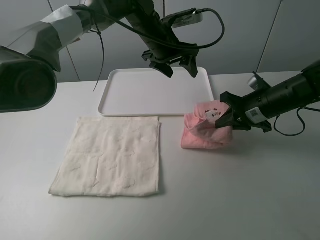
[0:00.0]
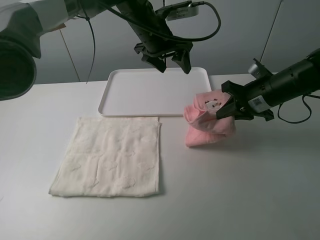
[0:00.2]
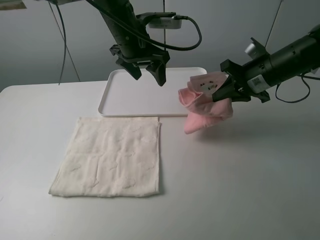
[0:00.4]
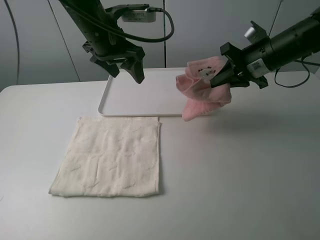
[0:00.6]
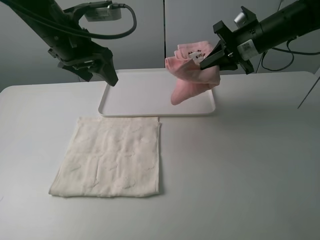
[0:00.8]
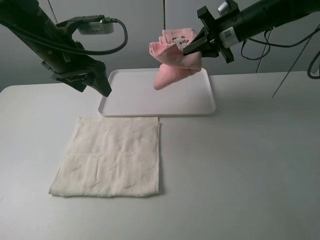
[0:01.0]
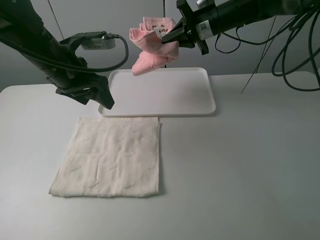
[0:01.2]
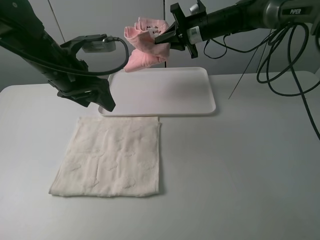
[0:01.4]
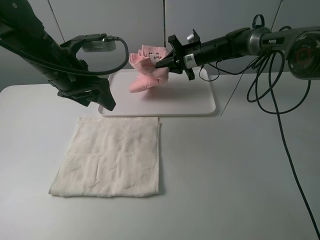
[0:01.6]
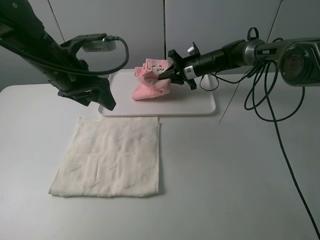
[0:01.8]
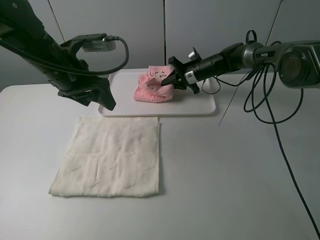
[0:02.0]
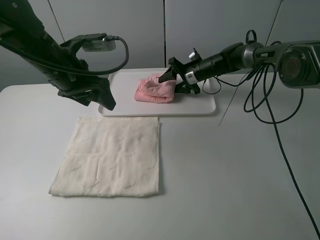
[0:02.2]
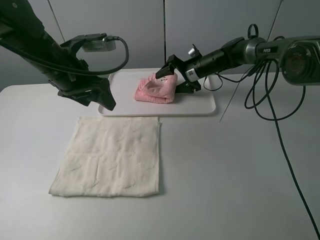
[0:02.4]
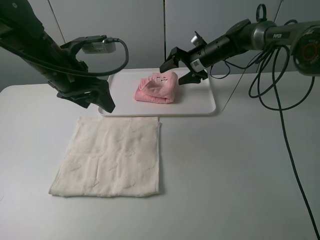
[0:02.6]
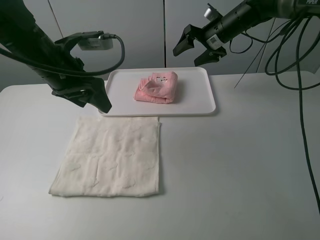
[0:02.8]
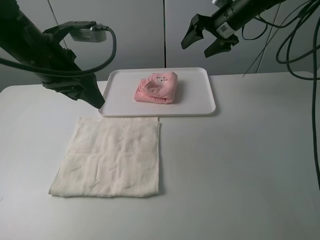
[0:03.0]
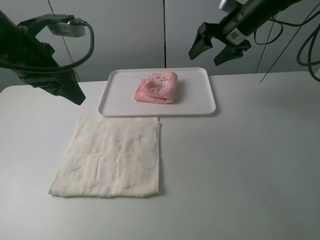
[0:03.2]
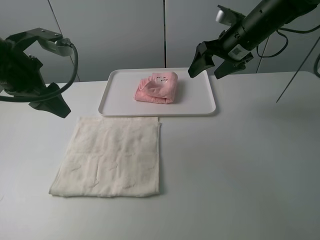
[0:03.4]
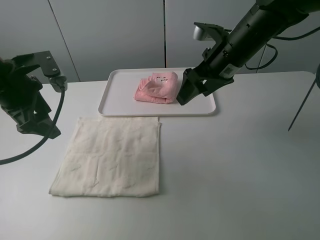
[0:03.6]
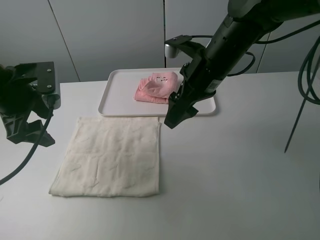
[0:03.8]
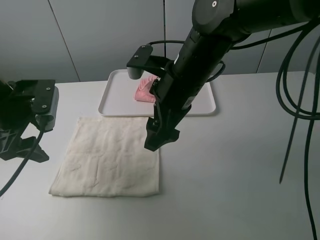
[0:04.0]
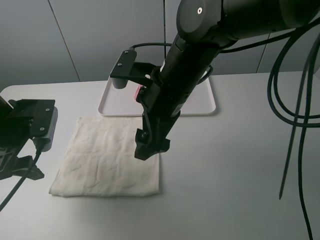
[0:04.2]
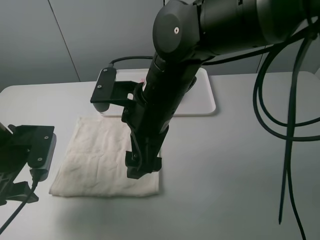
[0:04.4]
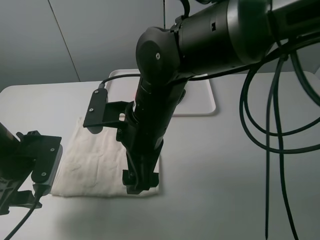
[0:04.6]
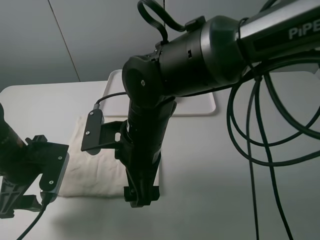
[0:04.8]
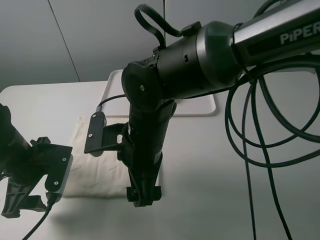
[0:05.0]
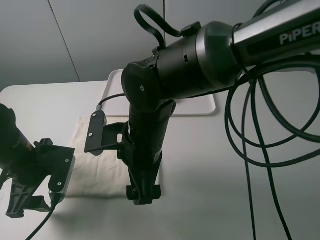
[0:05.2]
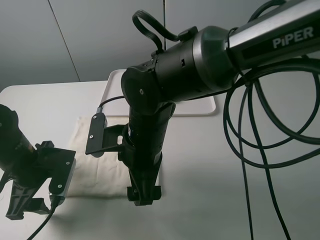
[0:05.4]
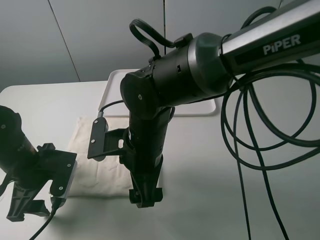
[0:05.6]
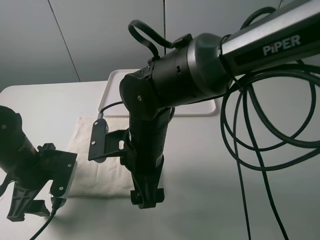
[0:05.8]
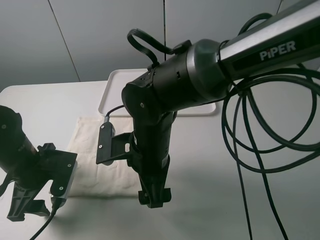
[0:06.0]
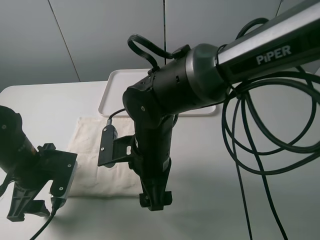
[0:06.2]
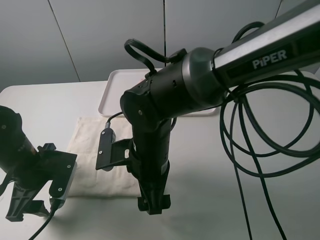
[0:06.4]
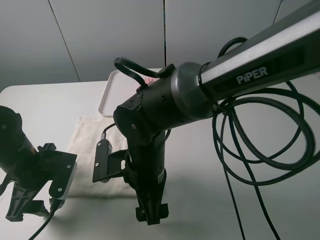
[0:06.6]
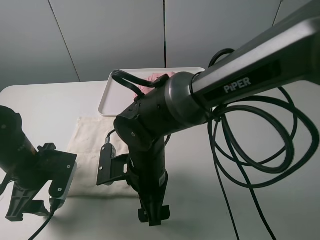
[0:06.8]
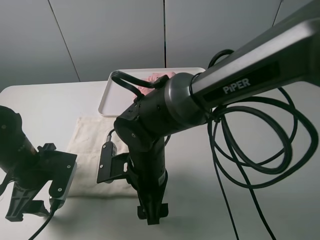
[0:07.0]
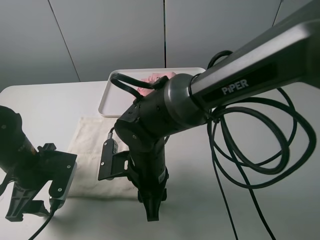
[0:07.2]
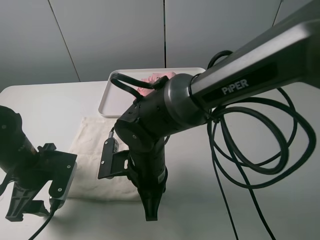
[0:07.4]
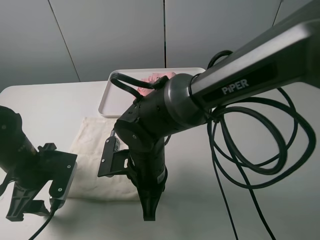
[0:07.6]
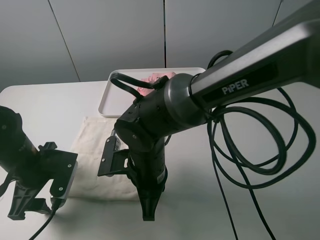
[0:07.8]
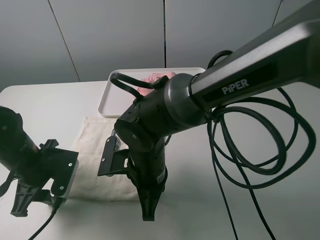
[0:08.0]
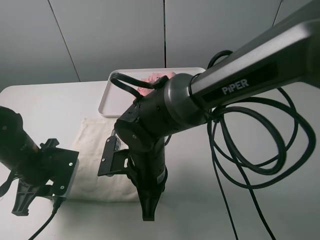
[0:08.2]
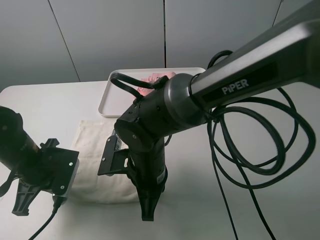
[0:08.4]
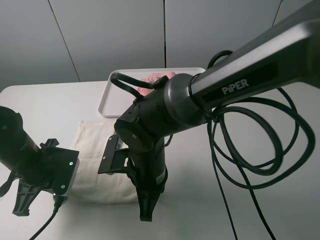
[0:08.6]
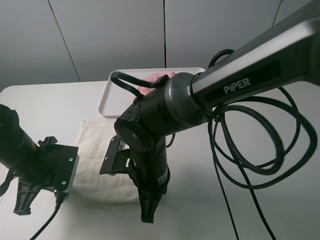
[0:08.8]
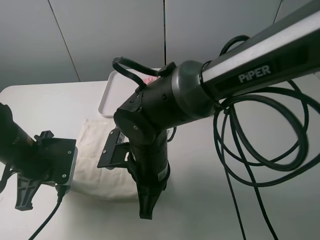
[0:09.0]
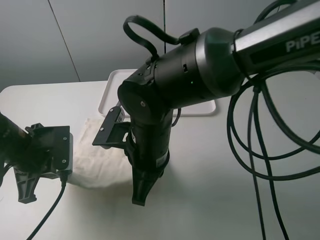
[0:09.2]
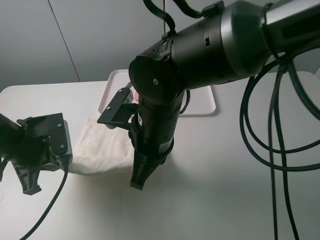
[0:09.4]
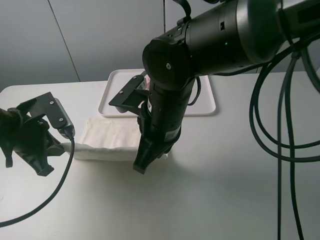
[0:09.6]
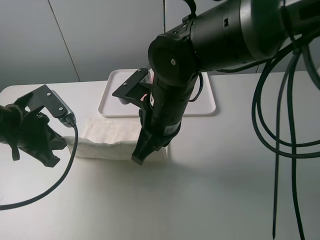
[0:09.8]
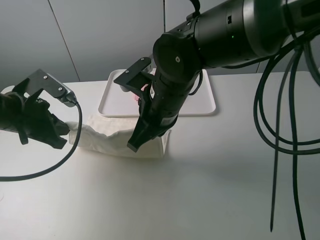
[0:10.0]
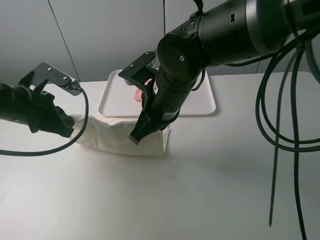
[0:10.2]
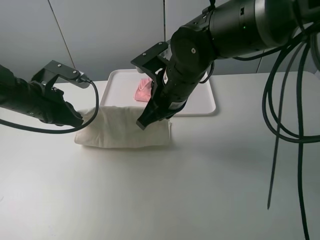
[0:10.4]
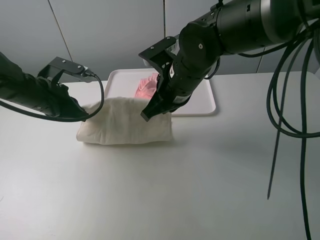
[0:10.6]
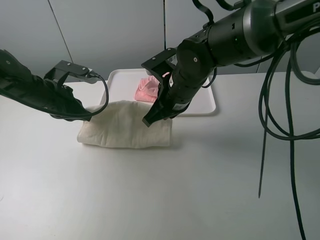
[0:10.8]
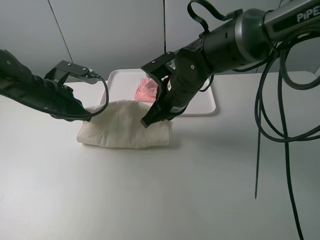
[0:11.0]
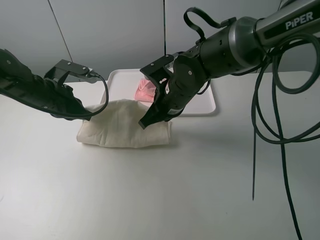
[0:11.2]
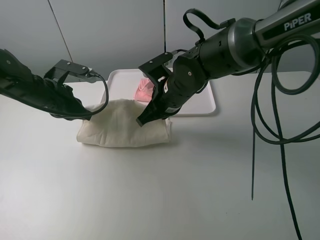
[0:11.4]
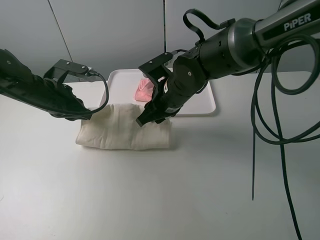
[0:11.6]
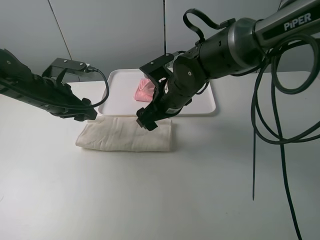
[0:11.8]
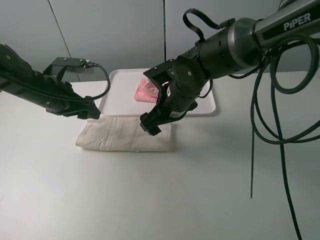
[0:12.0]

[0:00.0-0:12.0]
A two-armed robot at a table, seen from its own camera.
Task of the whole recording: fold one of the towels by two grippers and place it on the tray,then fold another towel by two grippers and place it on the folded towel.
Step, 0.0 to 2.6 s: Move the pink towel to the plate with the right gripper.
Step, 2.8 to 8.4 s: Grasp the white towel with the left gripper.
Step, 8.8 to 11.8 s: Fold the white towel upwards with the left gripper.
0.0 to 1.6 s: The left gripper is displaced to the left and backward by some 20 cm. The right gripper moves forward and to the left, roughly 25 cm.
1.6 to 3.0 s: The right gripper shifts some 15 cm upward and to the right, and opens.
3.0 to 4.4 s: The right gripper goes some 35 cm backward and to the left; the left gripper moves downward, backward and to the left, some 15 cm.
4.4 to 6.0 s: The left gripper changes place by about 5 cm. Meanwhile the right gripper moves downward, roughly 5 cm.
6.0 to 7.6 s: The right gripper closes.
7.6 to 9.0 s: The left gripper closes up.
9.0 to 10.4 s: The left gripper goes roughly 10 cm forward, while the right gripper shifts roughly 15 cm forward, upward and to the right.
10.4 to 12.0 s: The left gripper opens its fingers. The right gripper moves downward, some 5 cm, and opens.

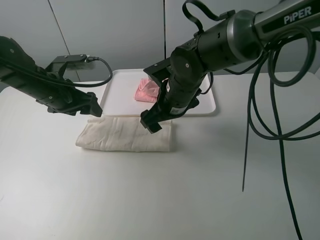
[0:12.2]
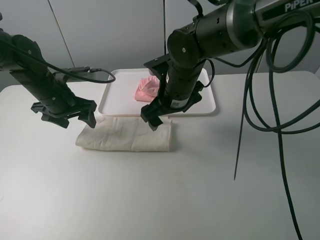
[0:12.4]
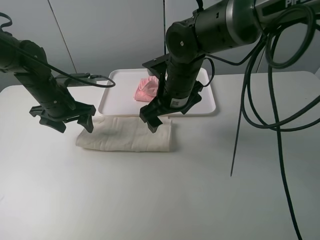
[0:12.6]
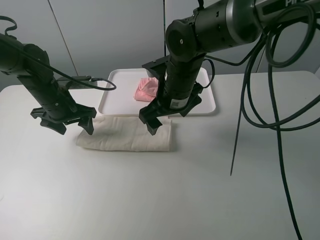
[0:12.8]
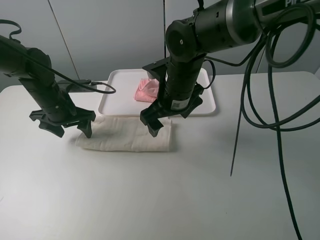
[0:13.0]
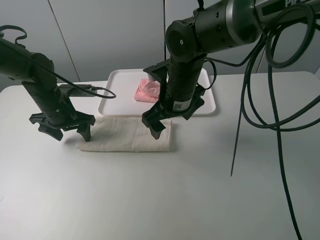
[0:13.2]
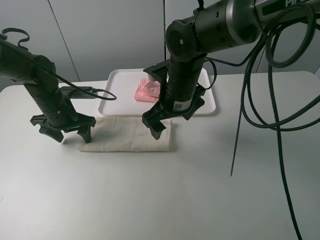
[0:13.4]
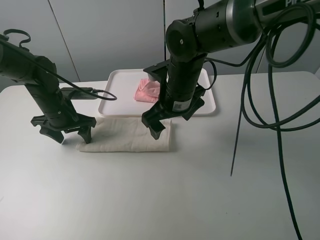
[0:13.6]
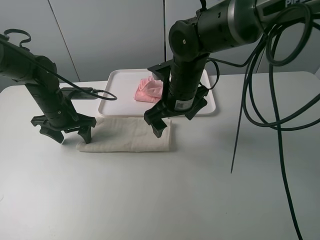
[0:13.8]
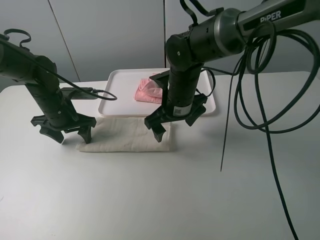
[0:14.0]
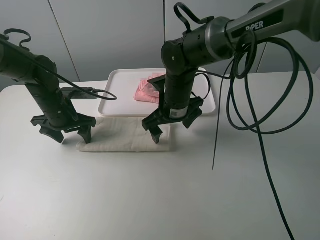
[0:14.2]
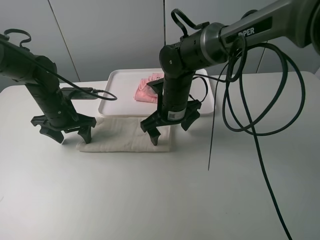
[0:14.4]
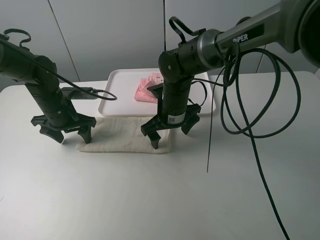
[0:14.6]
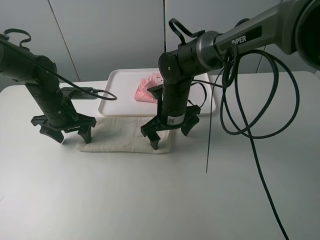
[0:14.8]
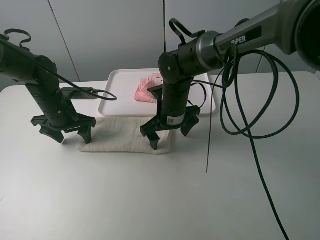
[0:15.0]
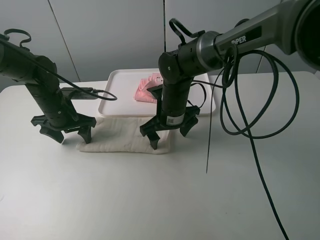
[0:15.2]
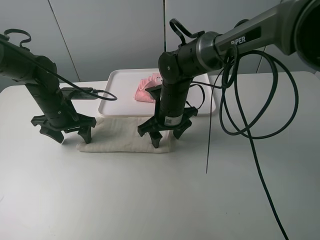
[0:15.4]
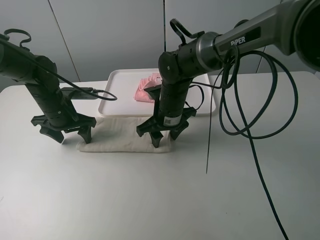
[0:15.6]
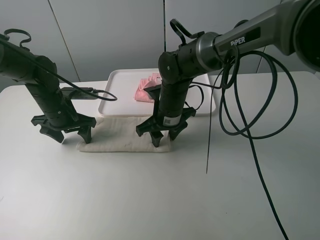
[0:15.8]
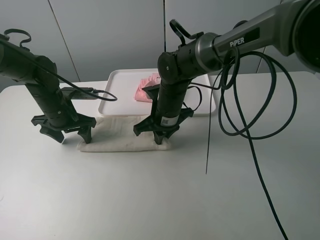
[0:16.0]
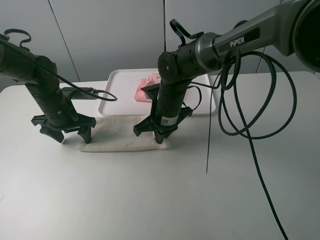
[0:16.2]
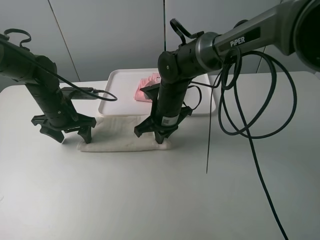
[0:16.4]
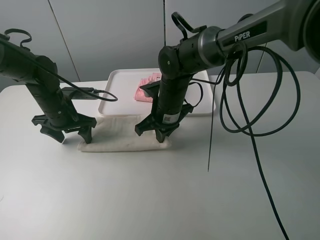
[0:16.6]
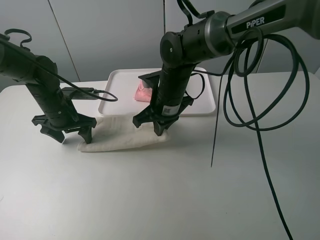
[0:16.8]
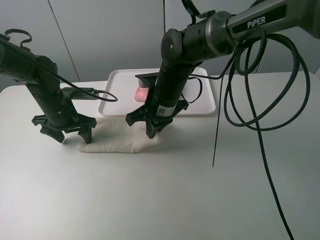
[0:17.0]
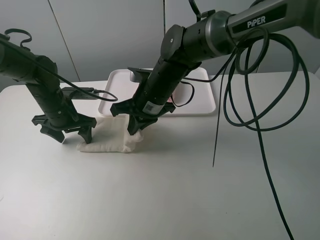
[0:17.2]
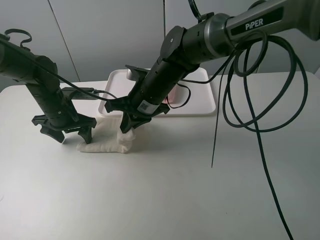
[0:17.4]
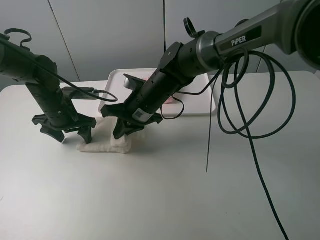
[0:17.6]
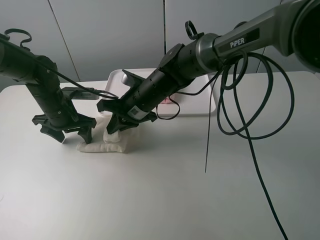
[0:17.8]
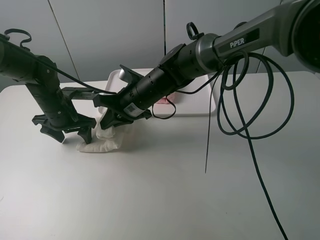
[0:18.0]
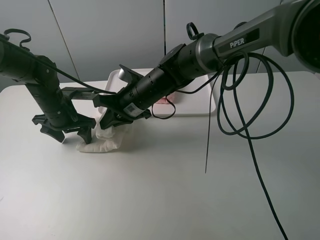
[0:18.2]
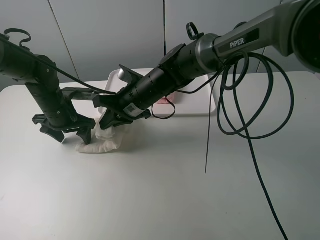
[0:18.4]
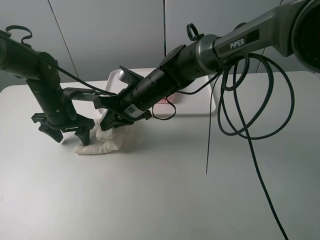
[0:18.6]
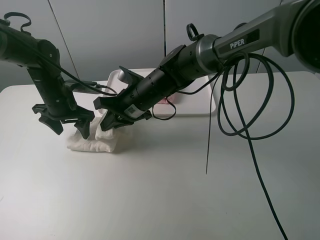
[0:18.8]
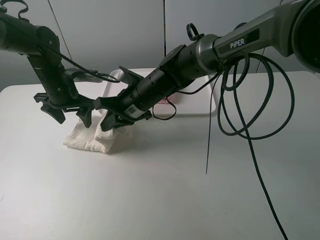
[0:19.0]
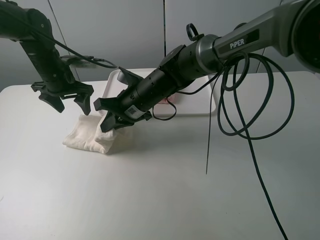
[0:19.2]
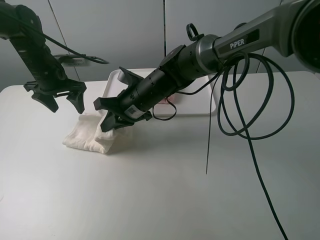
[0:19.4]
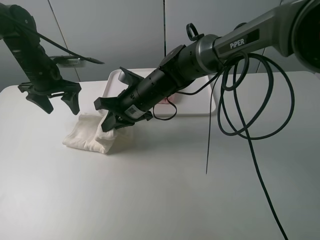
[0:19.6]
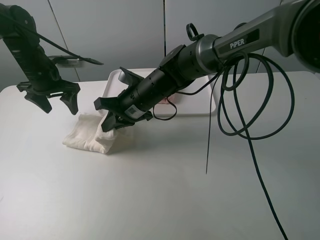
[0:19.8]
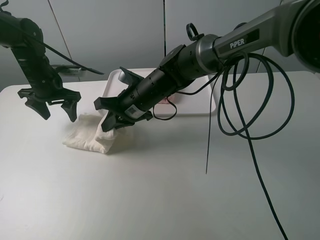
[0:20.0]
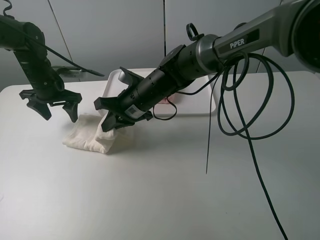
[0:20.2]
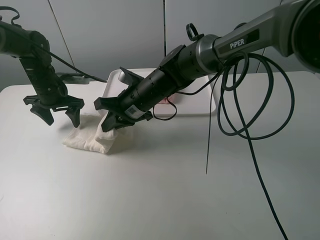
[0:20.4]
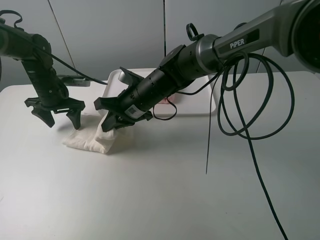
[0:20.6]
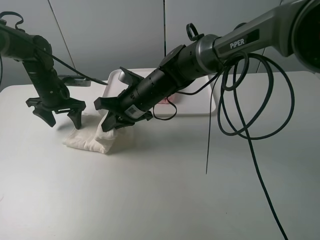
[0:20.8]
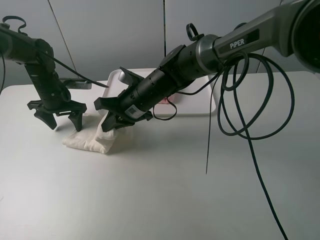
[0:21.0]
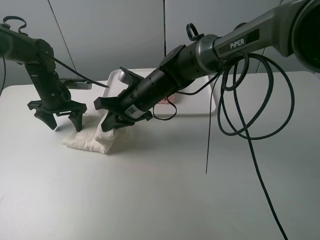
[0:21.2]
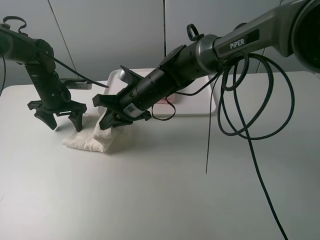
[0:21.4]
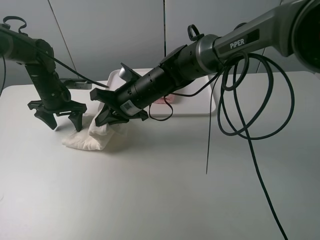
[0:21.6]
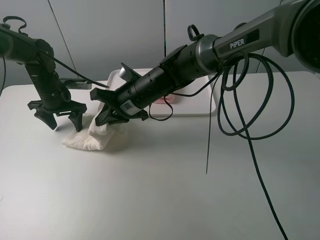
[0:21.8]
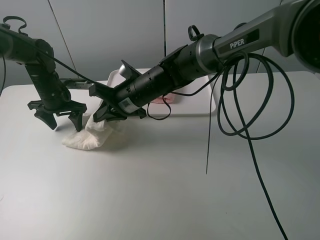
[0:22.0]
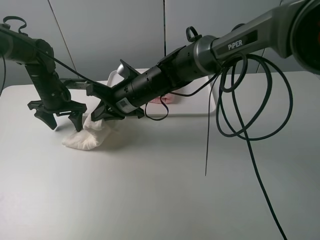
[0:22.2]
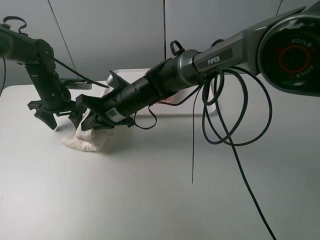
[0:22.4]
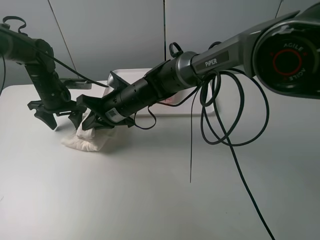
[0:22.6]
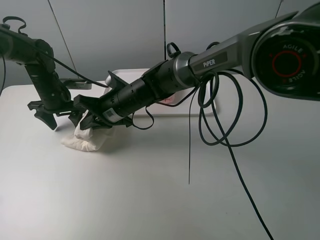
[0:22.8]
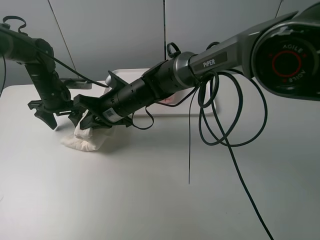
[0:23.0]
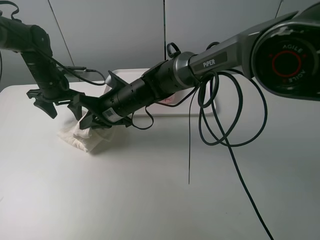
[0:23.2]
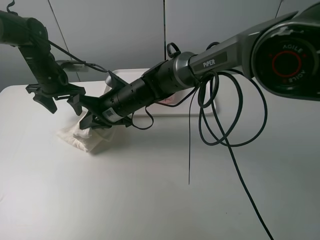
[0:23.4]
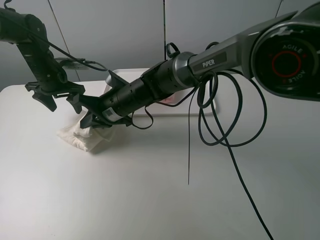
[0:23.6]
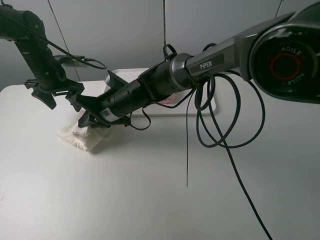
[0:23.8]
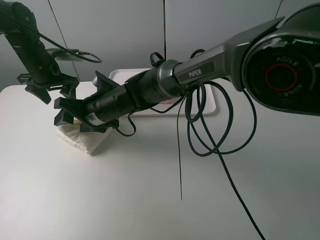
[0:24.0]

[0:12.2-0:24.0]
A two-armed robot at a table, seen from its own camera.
Task of the whole recording: fold one of the towels by two grippers and place it on the tray,then fold another towel by two grippers and place it on the folded towel.
Step, 12.2 to 13.6 s: Press the white towel with the left gripper.
Step, 13.8 to 16.2 s: Grasp the white towel with the right gripper.
12.2 to 13.6 s: The left gripper moves downward, roughly 5 cm.
13.6 to 15.2 s: The right gripper goes roughly 5 cm downward.
15.2 to 16.6 s: The right gripper closes up.
16.6 to 18.2 s: The right gripper shifts approximately 5 cm to the left.
18.2 to 19.6 s: The left gripper travels upward and forward by roughly 10 cm.
19.6 to 21.0 s: The left gripper is displaced downward by some 5 cm.
21.0 to 22.6 s: There are only small adjustments of the grippers.
22.6 to 24.0 s: The right gripper opens. Meanwhile the left gripper goes some 5 cm upward.
